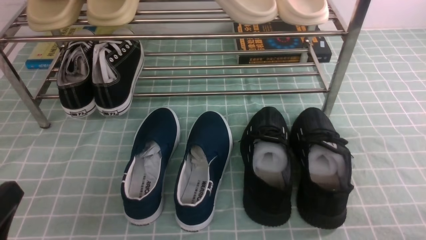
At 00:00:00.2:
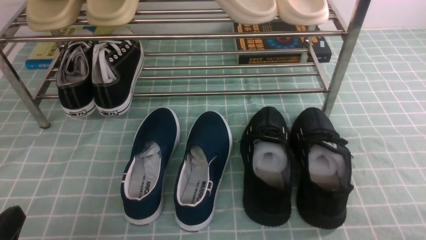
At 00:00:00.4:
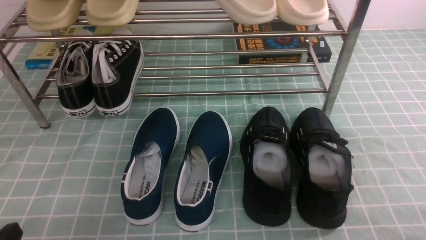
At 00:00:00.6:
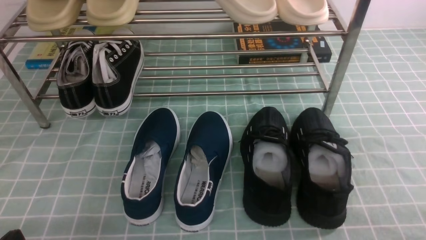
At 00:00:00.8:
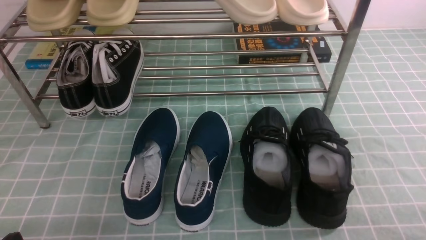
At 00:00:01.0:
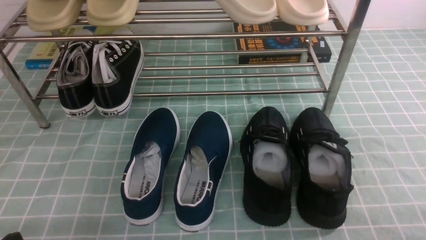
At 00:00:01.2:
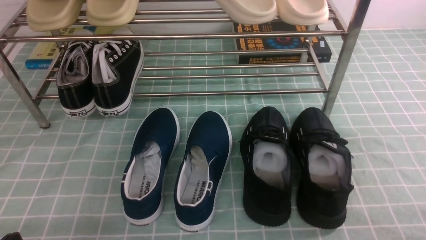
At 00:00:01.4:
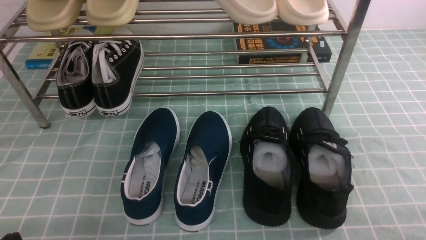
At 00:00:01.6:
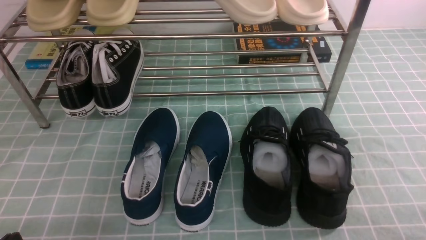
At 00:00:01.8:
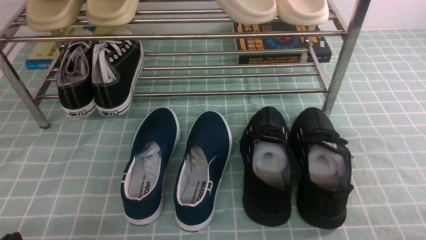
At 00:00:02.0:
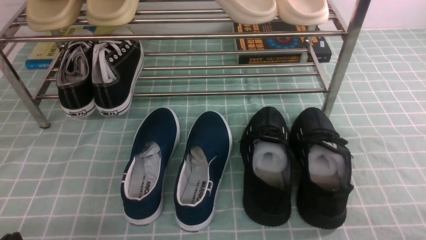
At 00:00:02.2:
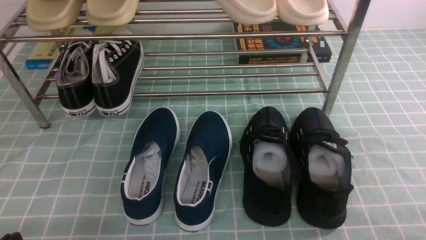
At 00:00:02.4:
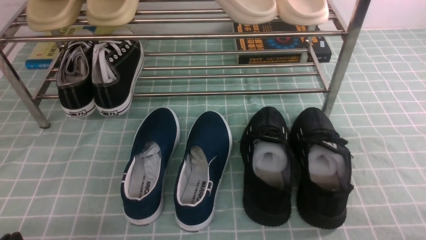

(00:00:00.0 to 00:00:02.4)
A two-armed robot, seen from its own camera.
00:00:00.0 - 00:00:01.2: The left gripper shifts approximately 10 cm downward.
00:00:01.2 - 00:00:02.4: Neither gripper changes place.

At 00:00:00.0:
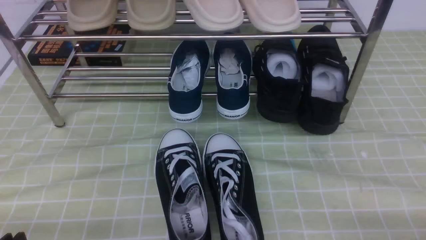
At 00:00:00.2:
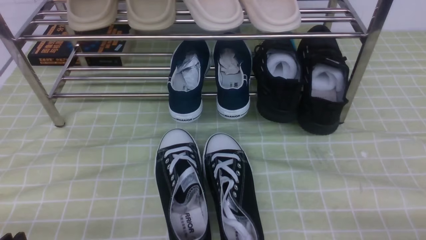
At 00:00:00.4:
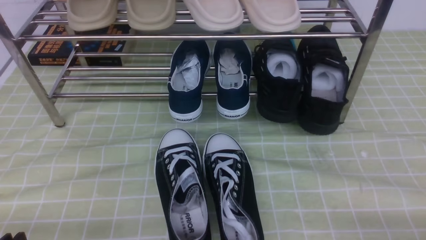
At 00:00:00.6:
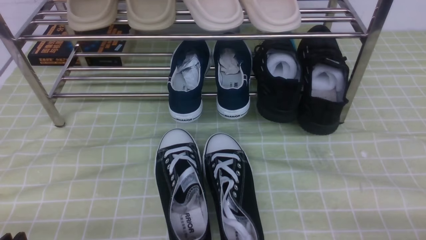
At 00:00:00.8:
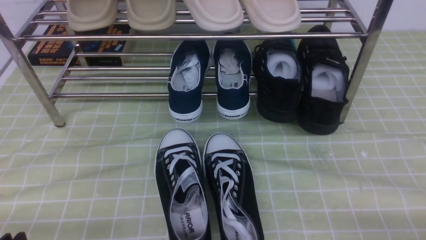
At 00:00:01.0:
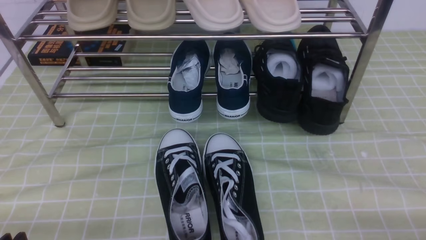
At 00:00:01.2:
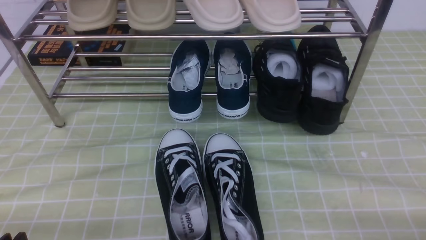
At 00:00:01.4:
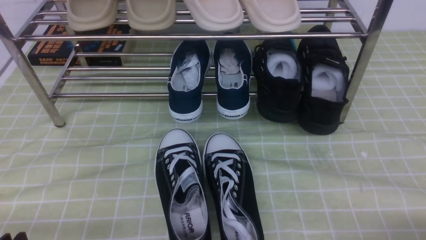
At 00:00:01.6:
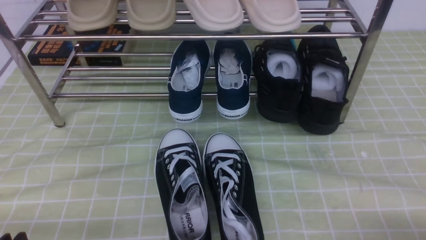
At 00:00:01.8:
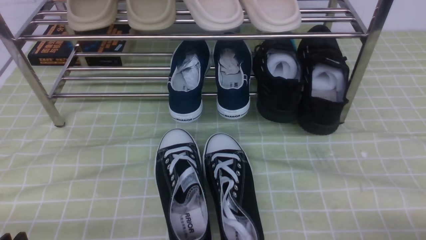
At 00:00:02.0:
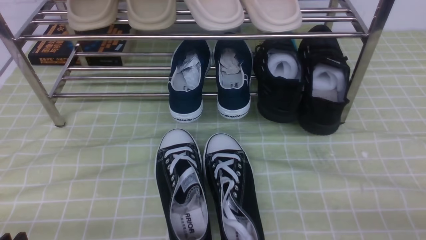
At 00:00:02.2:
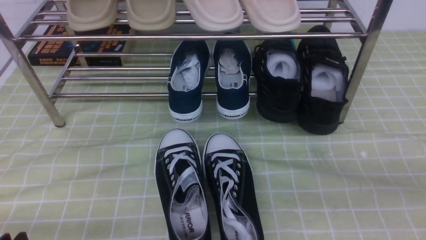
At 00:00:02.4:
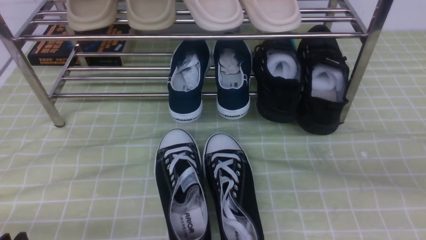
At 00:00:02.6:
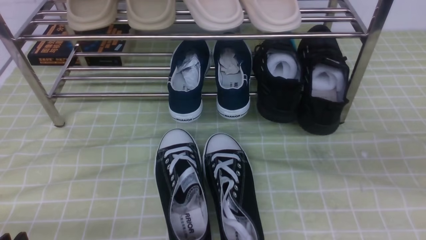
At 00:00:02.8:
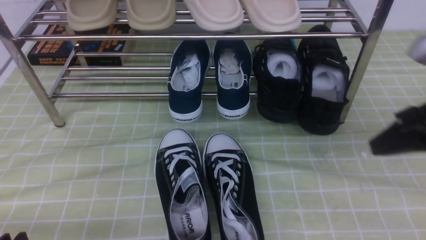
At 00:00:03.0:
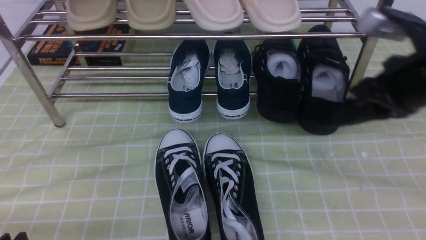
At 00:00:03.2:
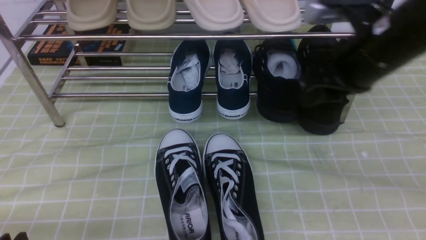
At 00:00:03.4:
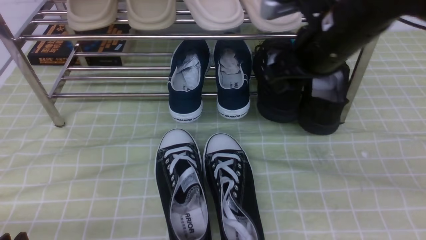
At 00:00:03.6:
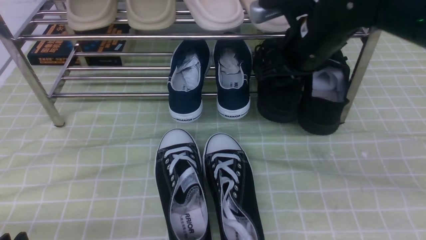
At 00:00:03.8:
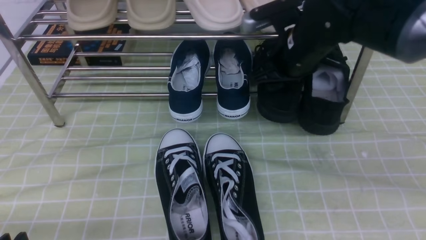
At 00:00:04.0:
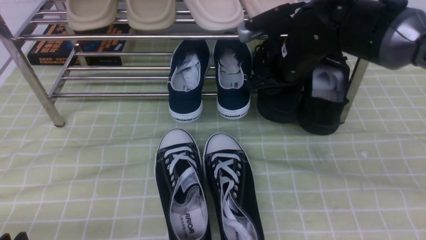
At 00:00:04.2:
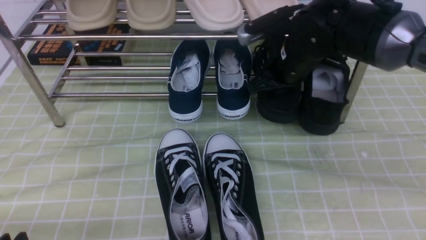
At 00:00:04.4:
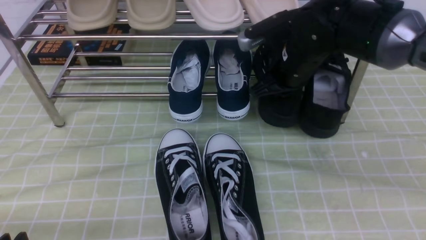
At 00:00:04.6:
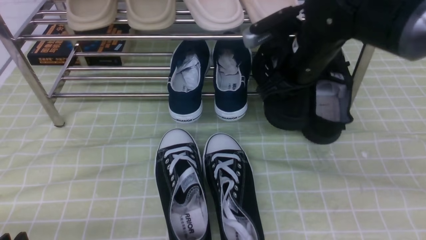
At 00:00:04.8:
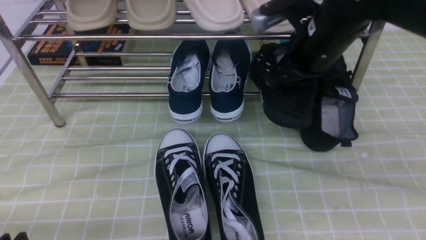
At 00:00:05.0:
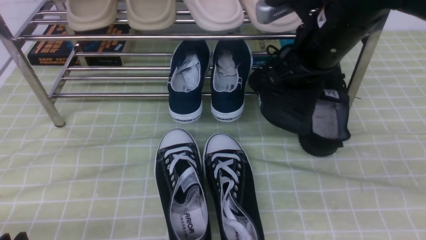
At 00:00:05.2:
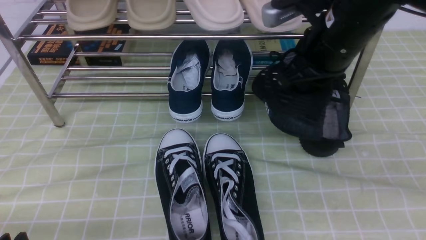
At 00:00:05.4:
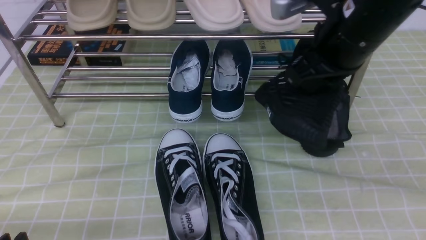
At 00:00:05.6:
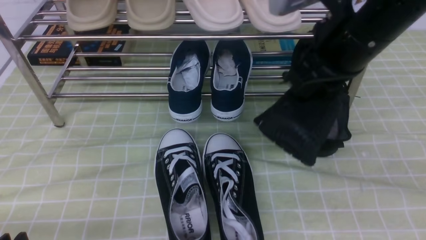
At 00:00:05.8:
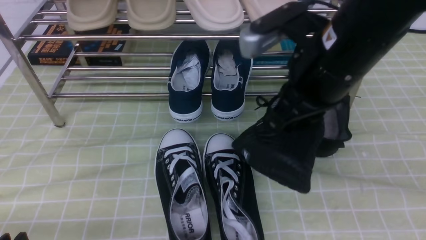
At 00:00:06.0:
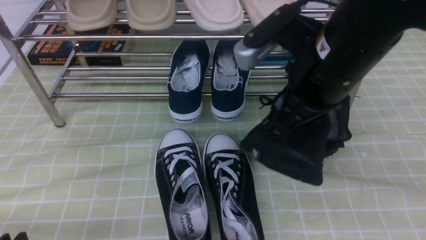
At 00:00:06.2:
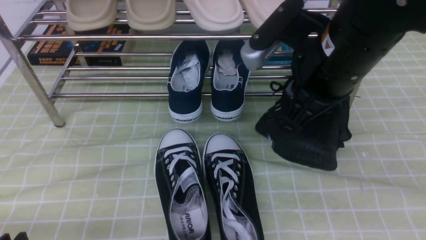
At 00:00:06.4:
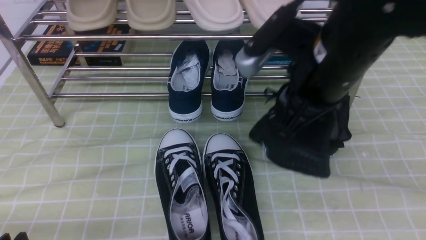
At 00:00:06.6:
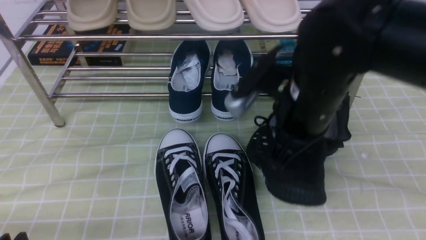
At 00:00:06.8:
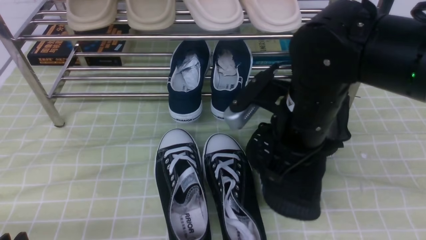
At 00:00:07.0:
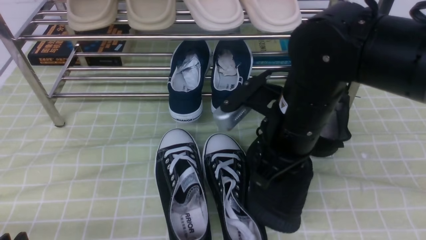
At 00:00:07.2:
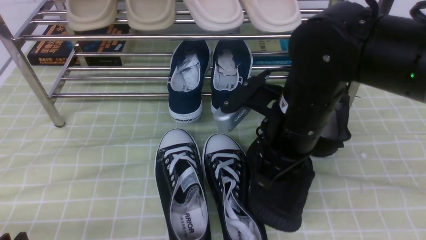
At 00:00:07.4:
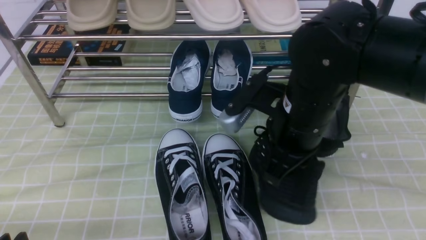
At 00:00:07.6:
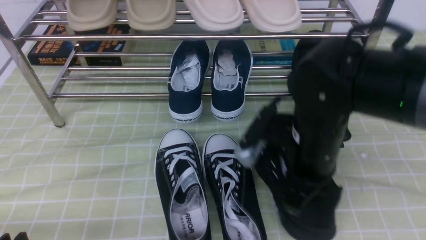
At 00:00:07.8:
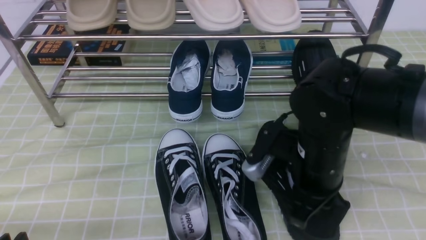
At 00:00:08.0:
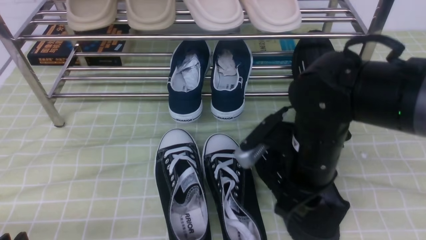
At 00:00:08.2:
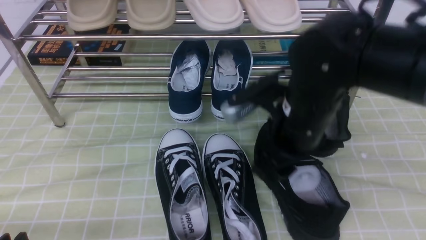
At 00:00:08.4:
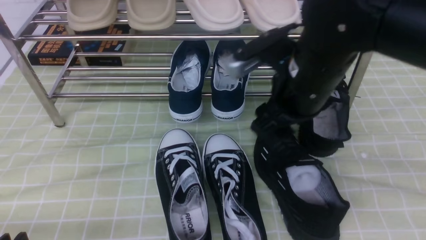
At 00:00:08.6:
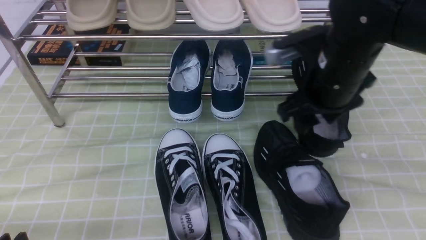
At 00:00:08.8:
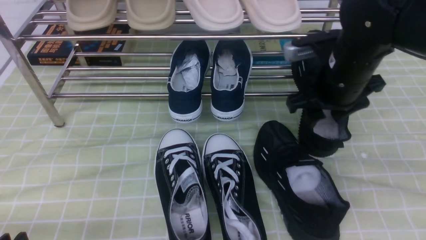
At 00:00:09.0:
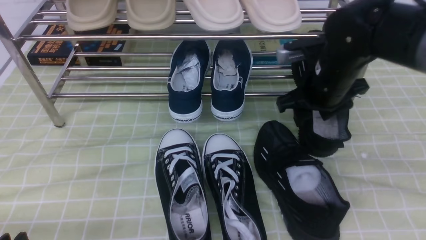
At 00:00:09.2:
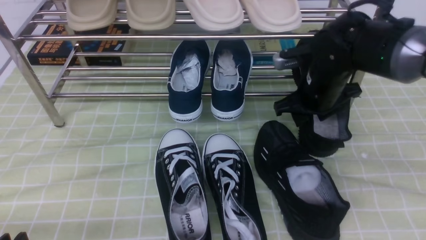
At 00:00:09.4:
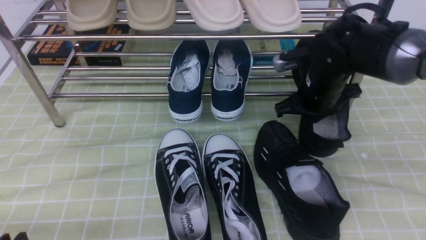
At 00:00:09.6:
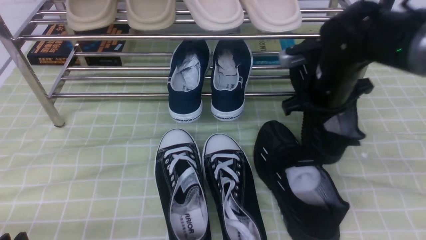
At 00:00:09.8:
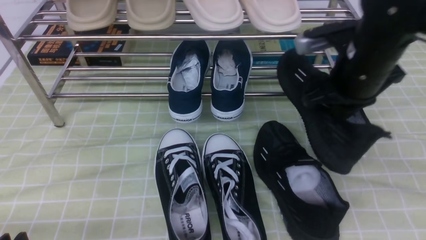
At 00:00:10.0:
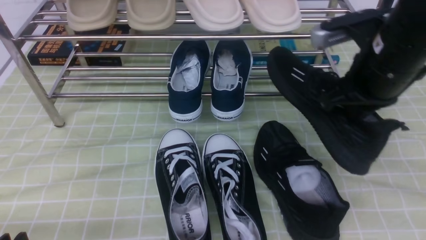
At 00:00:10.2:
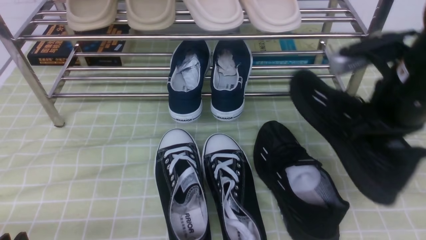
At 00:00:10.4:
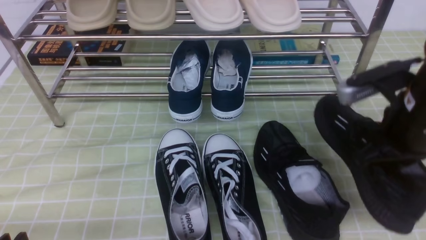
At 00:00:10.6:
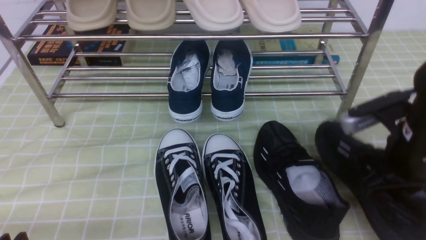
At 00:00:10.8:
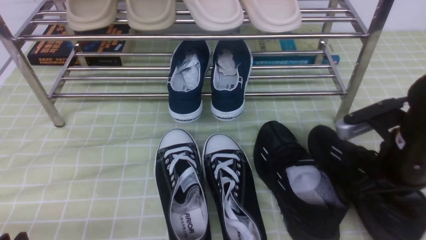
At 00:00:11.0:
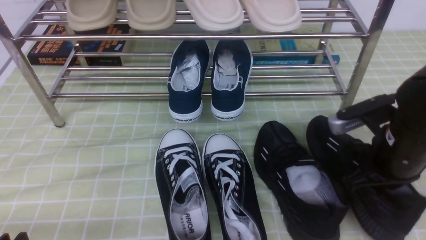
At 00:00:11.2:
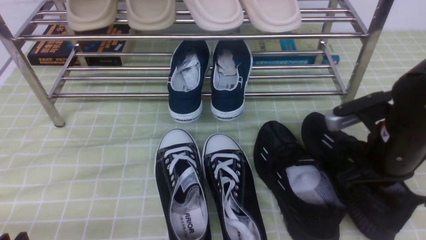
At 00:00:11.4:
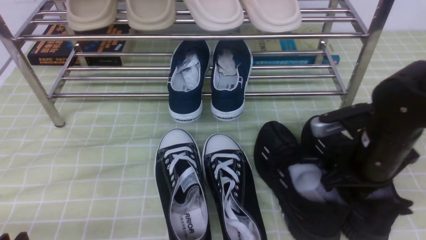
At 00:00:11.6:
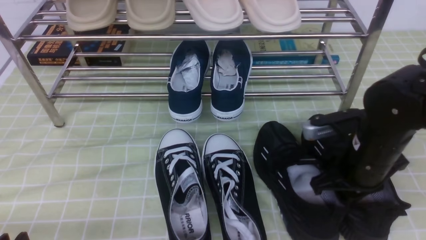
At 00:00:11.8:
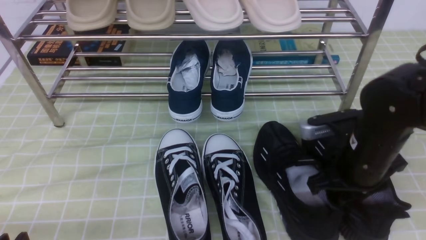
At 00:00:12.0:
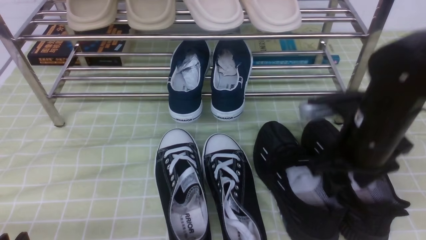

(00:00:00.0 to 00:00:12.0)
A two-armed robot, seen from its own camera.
Step, 00:00:00.0 - 00:00:04.4: use the right arm to clamp a shoe on the right side of the shoe rack.
Step, 00:00:04.6 - 00:00:08.6: use the right arm to take out the clamped shoe from the shoe rack and put it down.
Step, 00:00:08.8 - 00:00:09.4: use the right arm to clamp a shoe on the right side of the shoe rack.
Step, 00:00:09.6 - 00:00:12.0: use the right arm to take out the clamped shoe from the shoe rack and put it down.
00:00:01.6 - 00:00:03.0: The right gripper heads forward, upward and to the left, covering about 30 cm, and closes, then reopens.
00:00:03.0 - 00:00:04.4: The right gripper moves forward, to the left and downward, roughly 15 cm, and closes.
00:00:04.4 - 00:00:06.0: The right gripper travels backward and upward by approximately 15 cm.
00:00:06.0 - 00:00:07.6: The right gripper goes approximately 10 cm downward.
00:00:07.6 - 00:00:09.0: The right gripper shifts roughly 10 cm forward and to the right, and opens its fingers.
00:00:09.0 - 00:00:10.4: The right gripper goes approximately 15 cm backward and to the right, and closes its fingers.
00:00:10.4 - 00:00:12.0: The right gripper opens.

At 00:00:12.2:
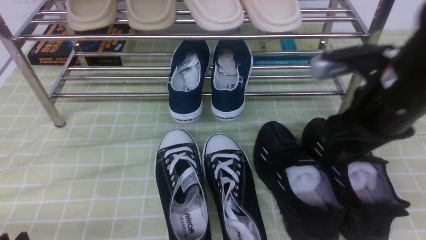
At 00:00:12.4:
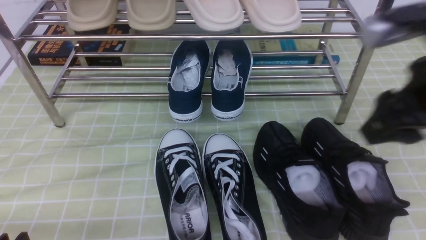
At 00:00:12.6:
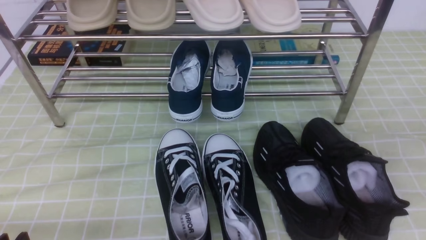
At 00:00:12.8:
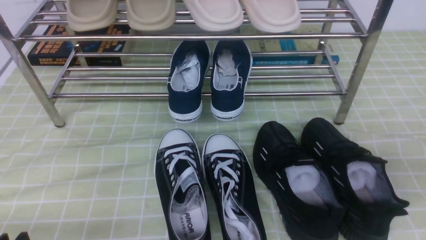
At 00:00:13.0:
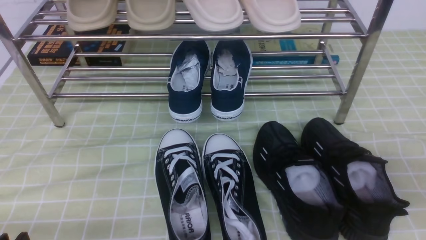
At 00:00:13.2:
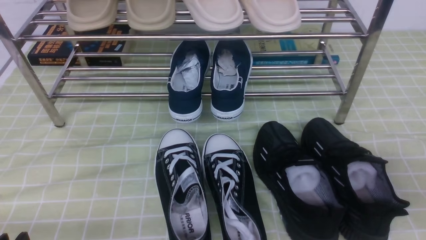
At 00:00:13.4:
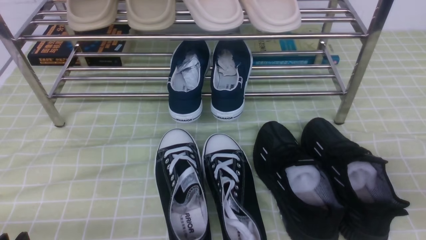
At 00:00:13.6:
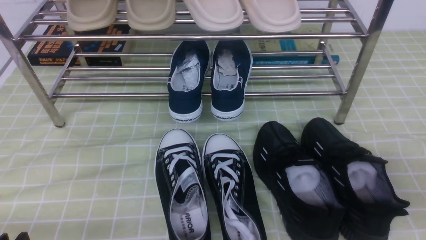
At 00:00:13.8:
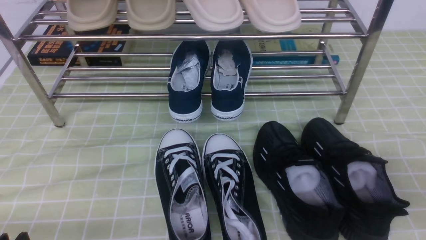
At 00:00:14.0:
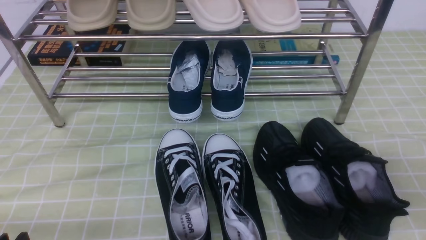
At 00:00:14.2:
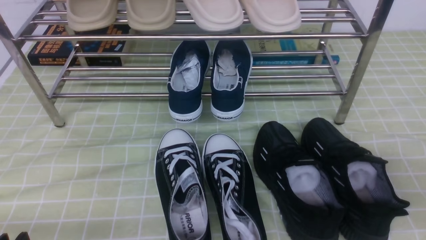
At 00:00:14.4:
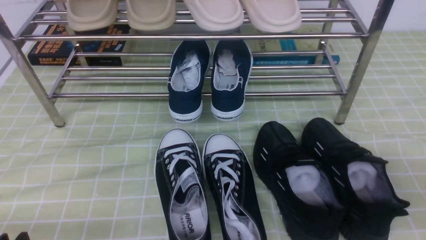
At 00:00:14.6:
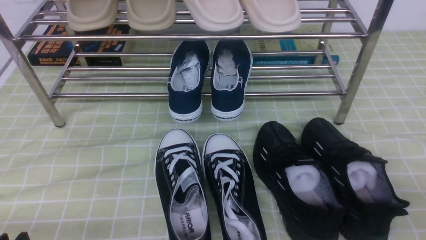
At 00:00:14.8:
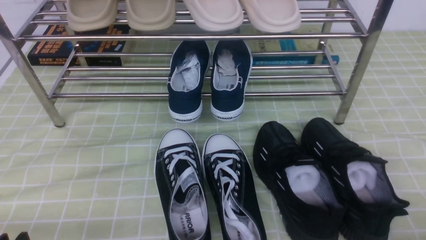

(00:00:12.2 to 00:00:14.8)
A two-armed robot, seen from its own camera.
00:00:12.2 - 00:00:13.4: The right gripper is displaced backward and to the right by roughly 20 cm, and closes its fingers.
00:00:13.4 - 00:00:14.8: The right gripper is displaced downward by about 10 cm.
